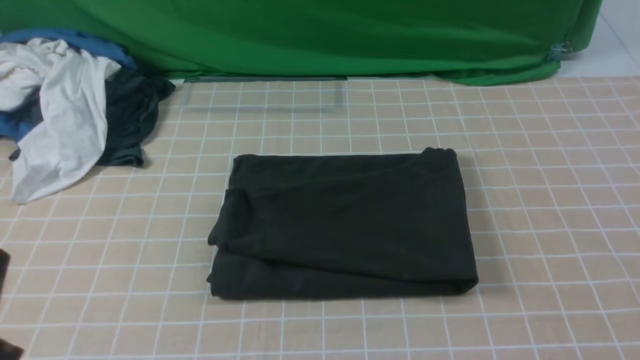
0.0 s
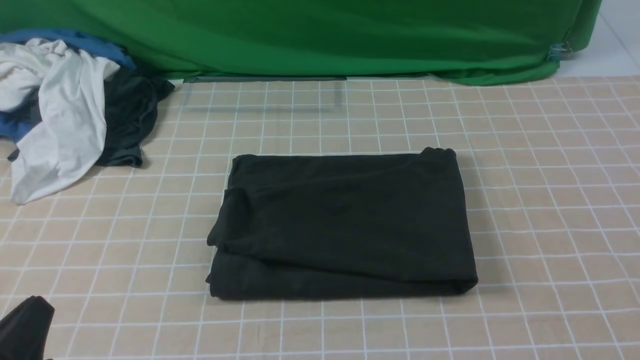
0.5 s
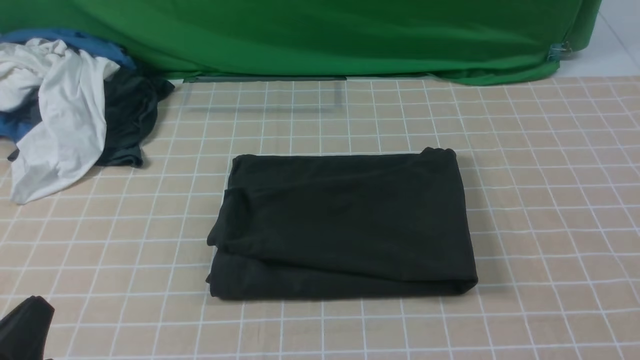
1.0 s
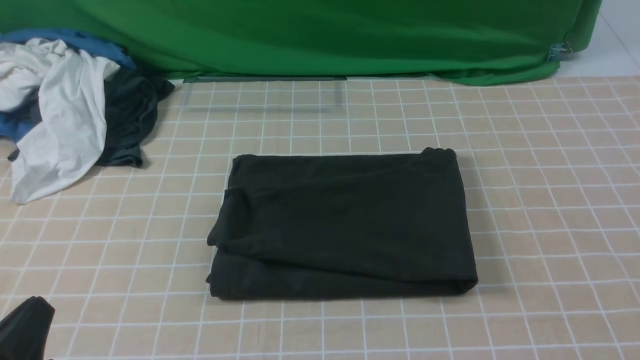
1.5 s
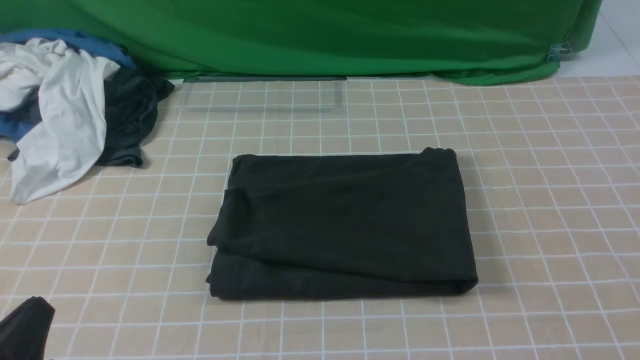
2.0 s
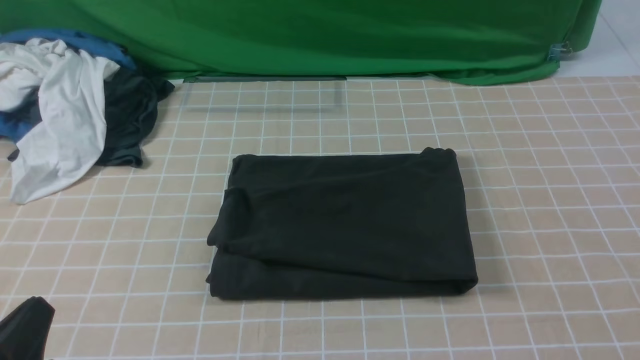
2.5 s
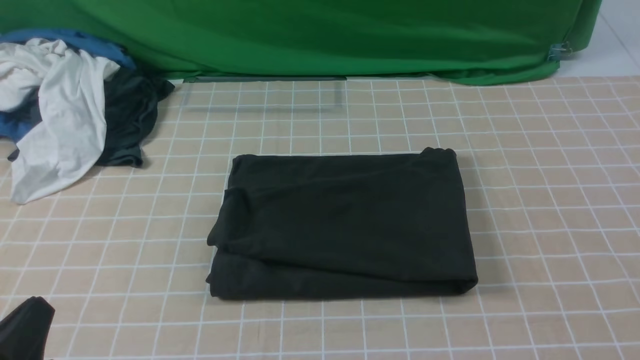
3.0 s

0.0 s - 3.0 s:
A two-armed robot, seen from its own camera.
0.0 s - 1.5 s: The left gripper heads downward, covering some 5 cm.
